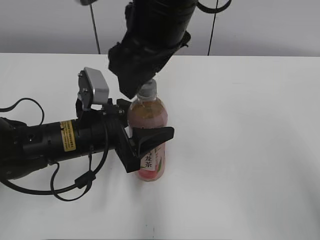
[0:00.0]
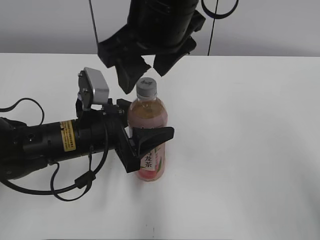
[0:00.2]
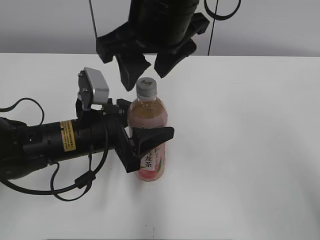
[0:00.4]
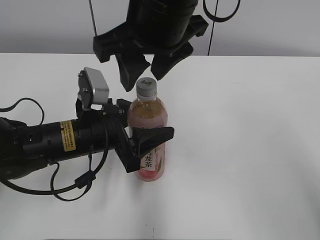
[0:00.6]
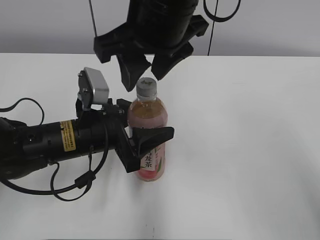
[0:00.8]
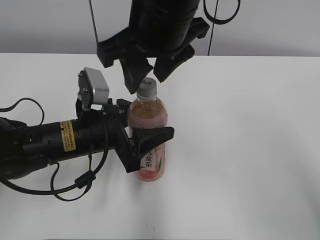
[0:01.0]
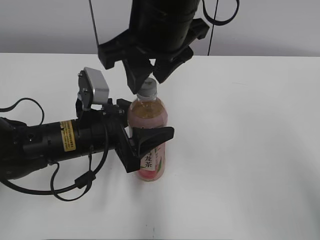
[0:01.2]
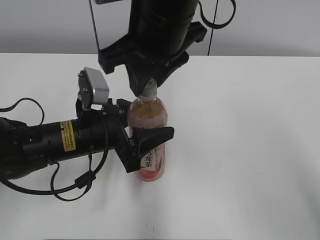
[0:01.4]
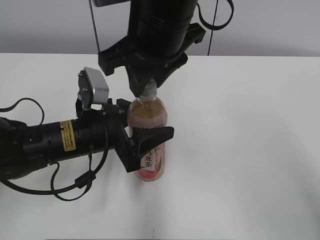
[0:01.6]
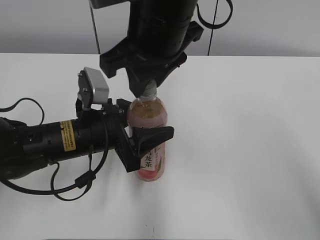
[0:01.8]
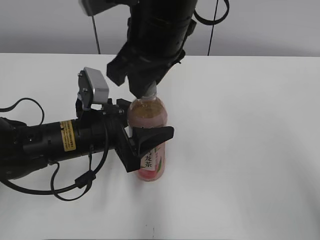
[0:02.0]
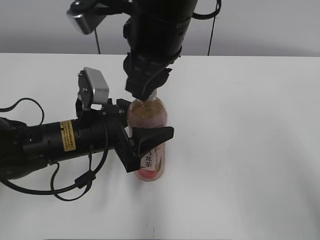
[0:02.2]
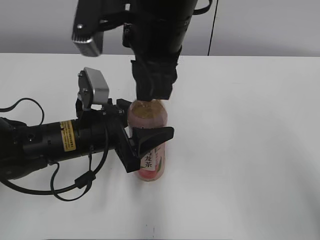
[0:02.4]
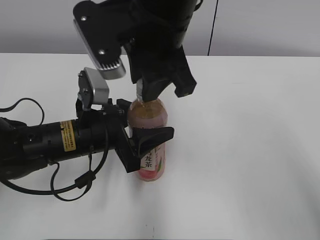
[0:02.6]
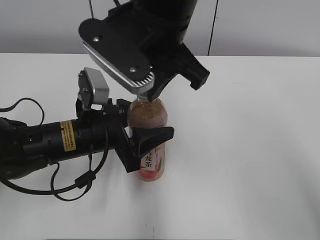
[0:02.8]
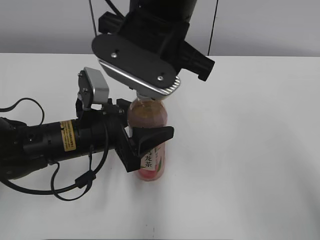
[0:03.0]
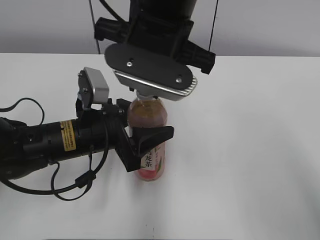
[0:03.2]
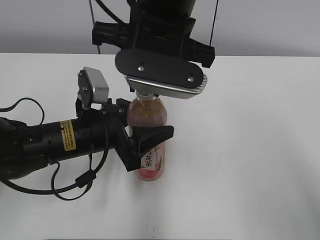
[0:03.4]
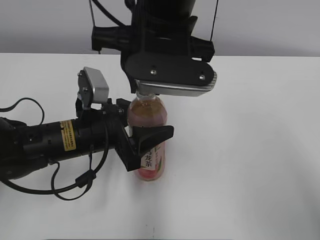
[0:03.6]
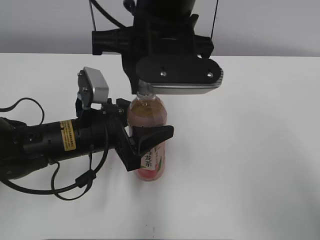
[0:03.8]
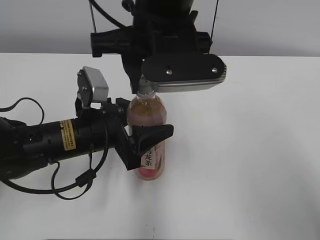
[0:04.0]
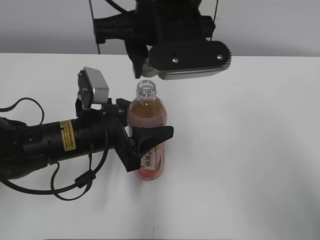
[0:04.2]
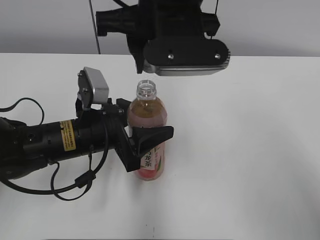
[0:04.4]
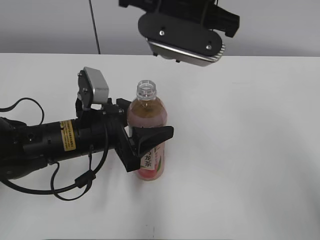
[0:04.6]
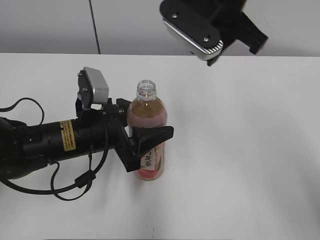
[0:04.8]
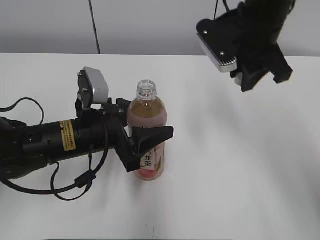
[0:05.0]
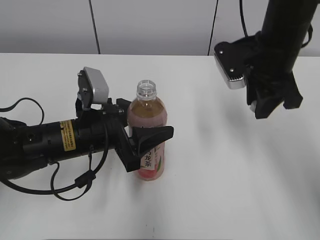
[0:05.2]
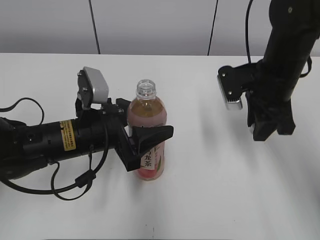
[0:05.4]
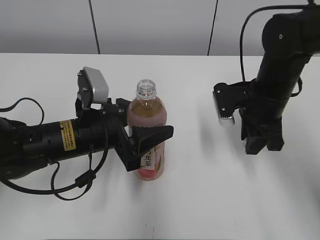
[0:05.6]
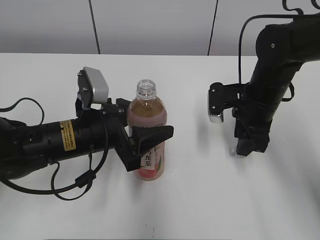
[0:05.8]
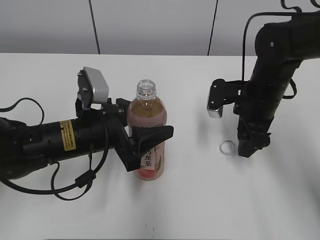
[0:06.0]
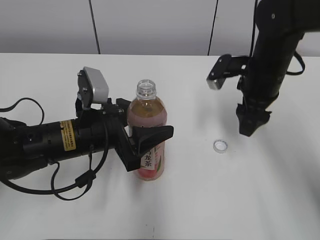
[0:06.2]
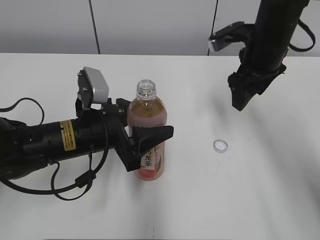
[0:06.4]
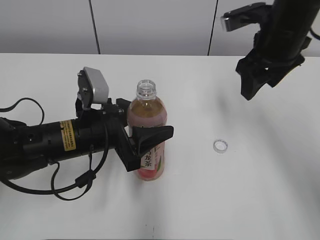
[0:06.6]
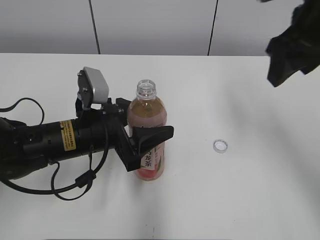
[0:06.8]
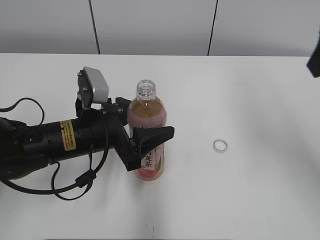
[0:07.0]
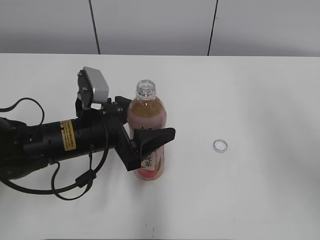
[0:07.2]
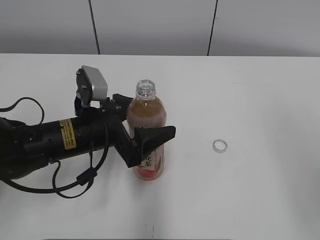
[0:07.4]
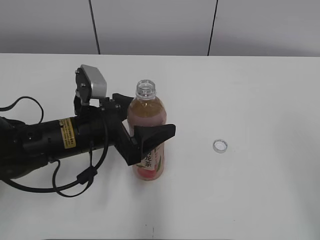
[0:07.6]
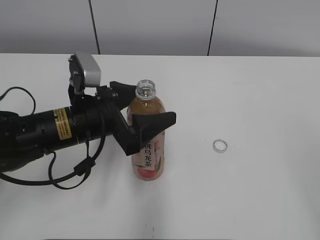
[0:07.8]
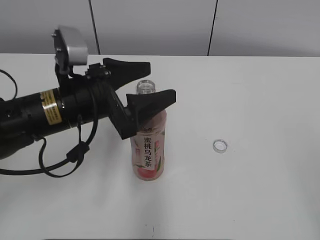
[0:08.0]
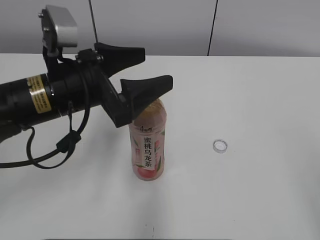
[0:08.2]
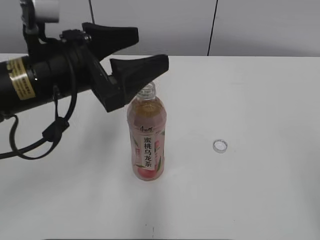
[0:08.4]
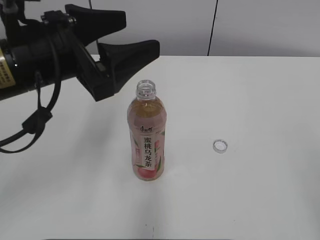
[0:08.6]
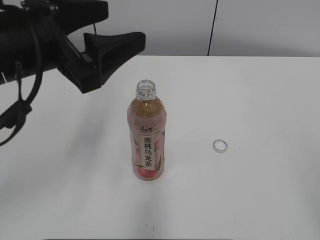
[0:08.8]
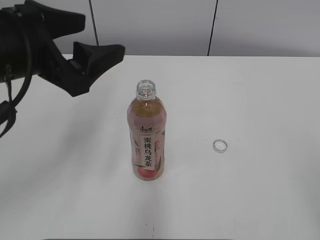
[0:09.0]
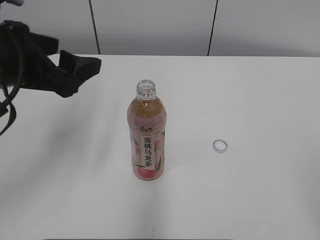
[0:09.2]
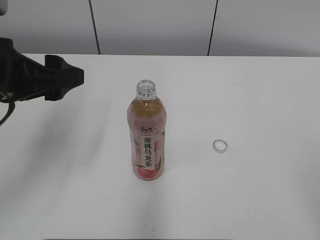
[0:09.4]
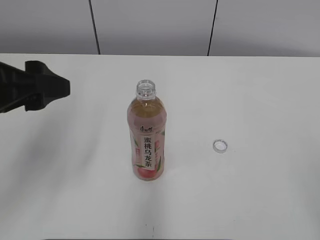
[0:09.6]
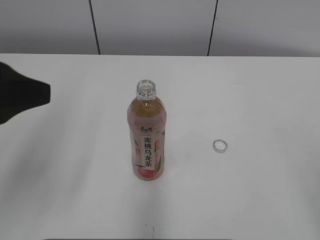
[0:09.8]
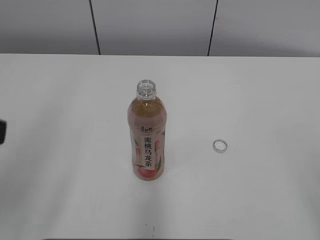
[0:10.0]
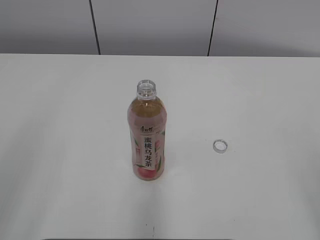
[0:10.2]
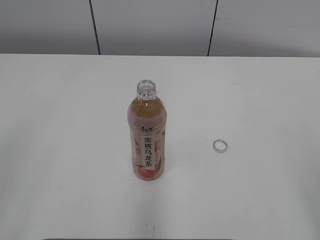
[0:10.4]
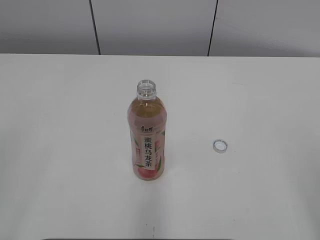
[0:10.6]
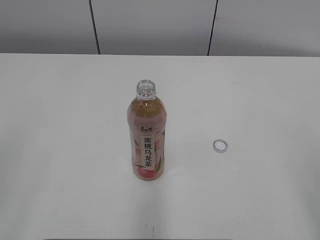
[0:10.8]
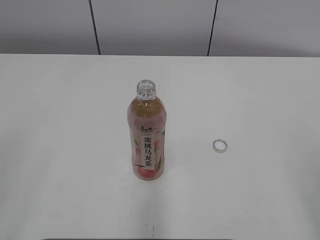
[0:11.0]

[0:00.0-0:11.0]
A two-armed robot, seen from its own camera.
Step, 0:04.8 to 0:06.8: Place the bottle cap on the right.
Step, 0:07.0 to 0:08.6: Place the Peach Oolong Tea with the left hand.
0:00.0 to 0:01.6: The right gripper closes.
0:03.2 to 0:04.8: The right gripper moves to the right and forward, approximately 10 cm.
0:04.8 to 0:06.2: The right gripper shifts roughly 20 cm downward and to the right, and opens.
0:06.2 to 0:07.8: The left gripper opens up. The right gripper is displaced backward and upward by roughly 40 cm.
0:07.8 to 0:09.4: The left gripper shifts approximately 15 cm upward and to the left.
0:09.4 to 0:11.0: The left gripper travels backward and to the left by roughly 25 cm.

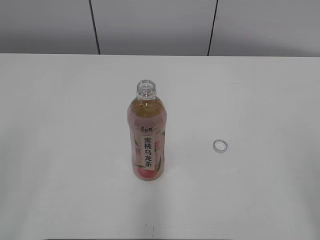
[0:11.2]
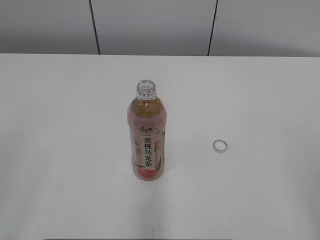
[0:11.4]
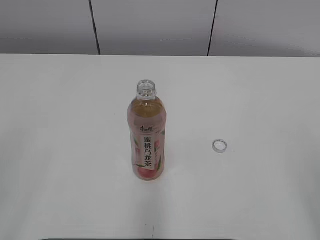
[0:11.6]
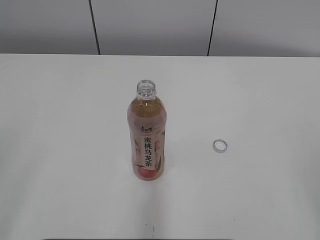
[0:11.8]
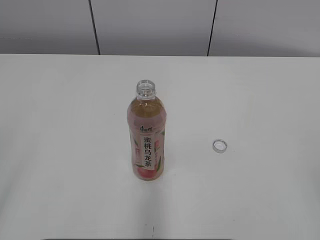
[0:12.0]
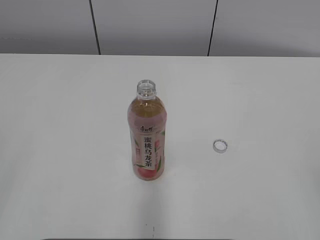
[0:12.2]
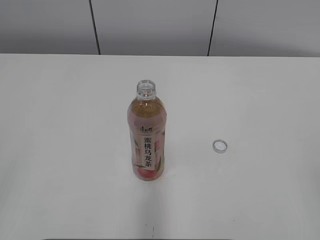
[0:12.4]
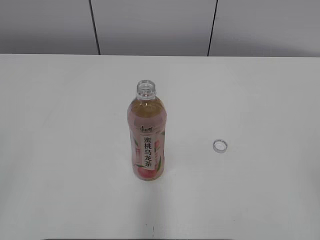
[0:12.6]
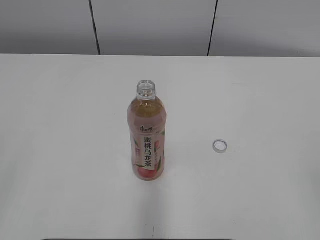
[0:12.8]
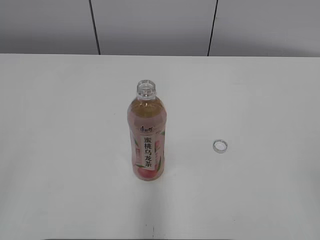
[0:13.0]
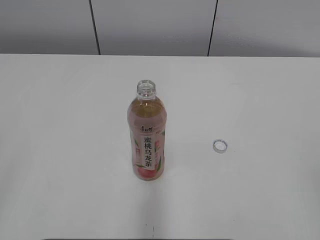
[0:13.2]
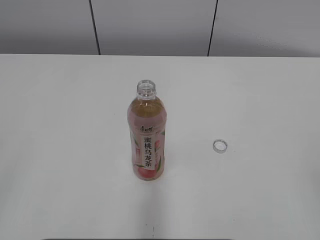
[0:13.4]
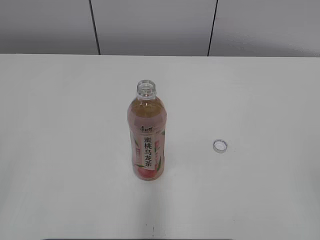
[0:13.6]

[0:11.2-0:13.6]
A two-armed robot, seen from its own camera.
0:12.4 to 0:13.6: The two grippers keep their place.

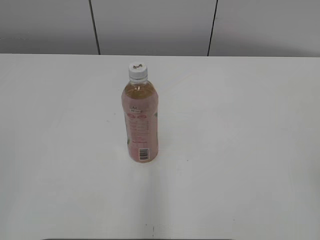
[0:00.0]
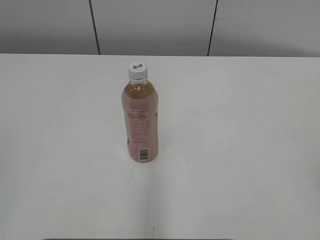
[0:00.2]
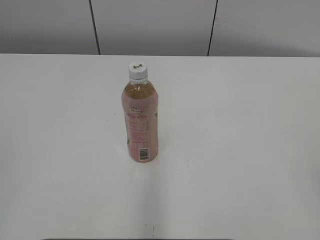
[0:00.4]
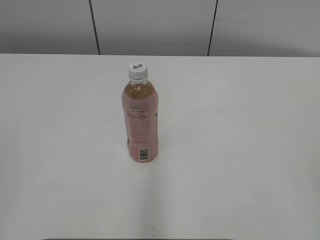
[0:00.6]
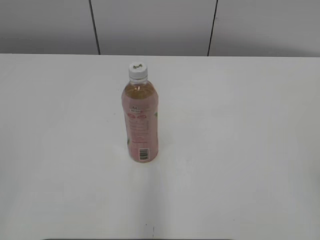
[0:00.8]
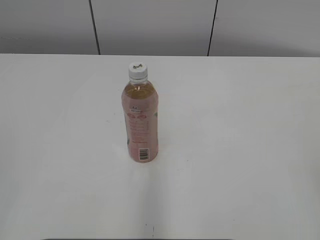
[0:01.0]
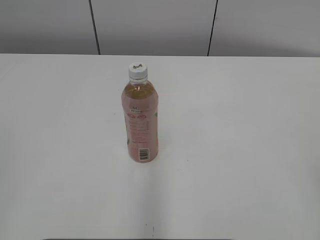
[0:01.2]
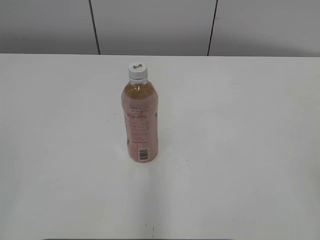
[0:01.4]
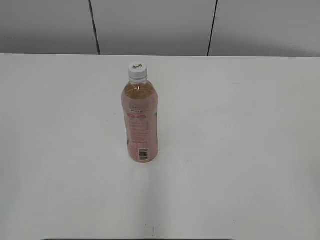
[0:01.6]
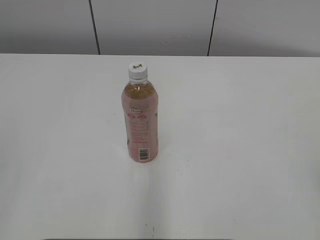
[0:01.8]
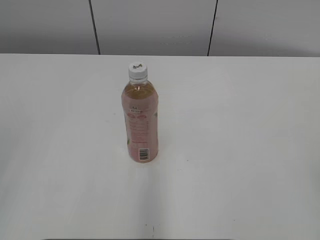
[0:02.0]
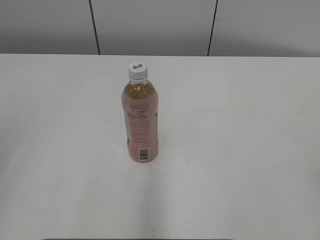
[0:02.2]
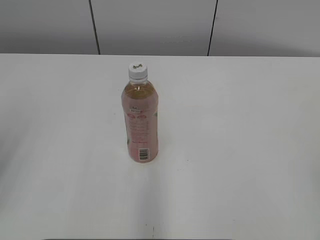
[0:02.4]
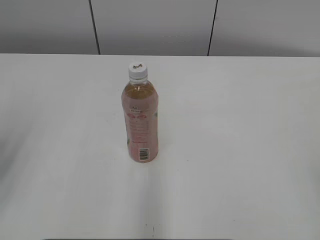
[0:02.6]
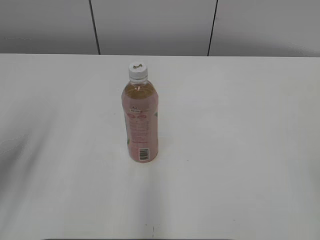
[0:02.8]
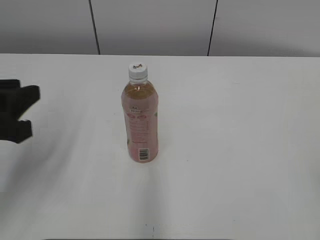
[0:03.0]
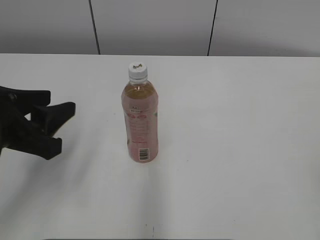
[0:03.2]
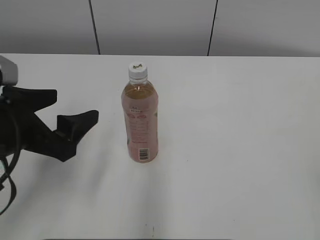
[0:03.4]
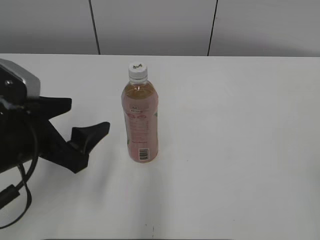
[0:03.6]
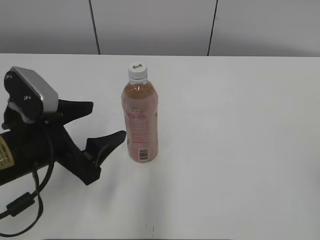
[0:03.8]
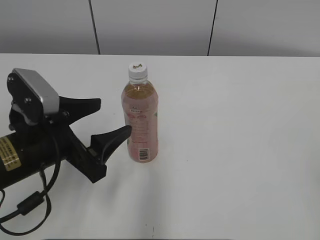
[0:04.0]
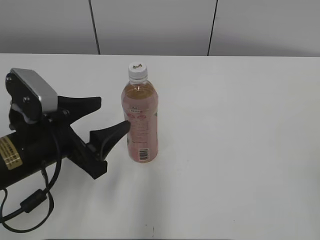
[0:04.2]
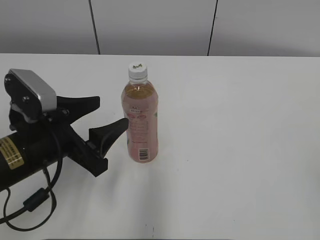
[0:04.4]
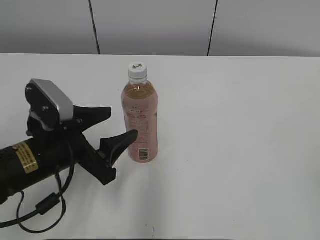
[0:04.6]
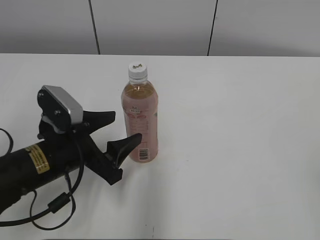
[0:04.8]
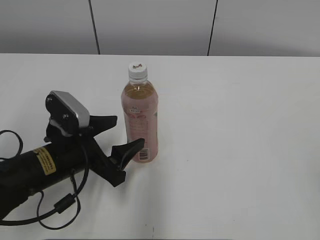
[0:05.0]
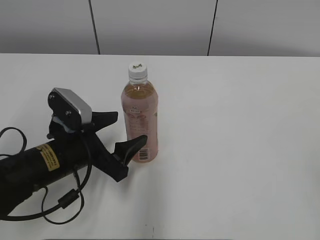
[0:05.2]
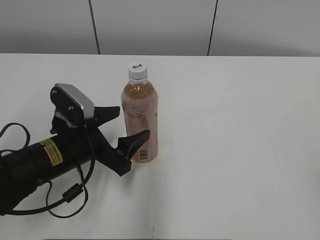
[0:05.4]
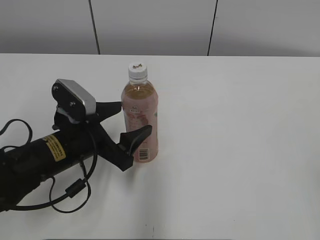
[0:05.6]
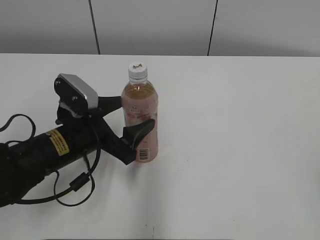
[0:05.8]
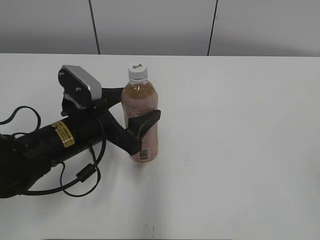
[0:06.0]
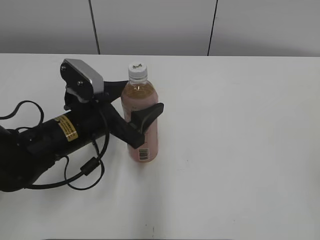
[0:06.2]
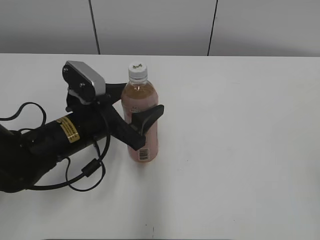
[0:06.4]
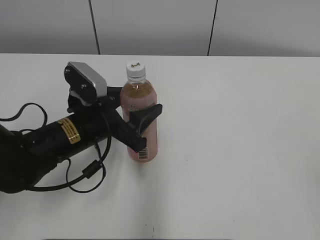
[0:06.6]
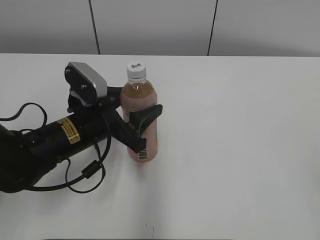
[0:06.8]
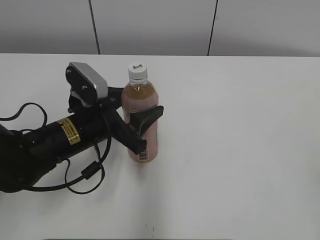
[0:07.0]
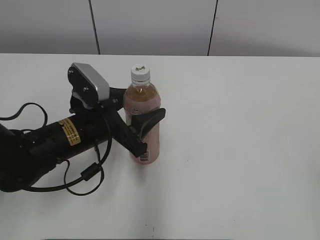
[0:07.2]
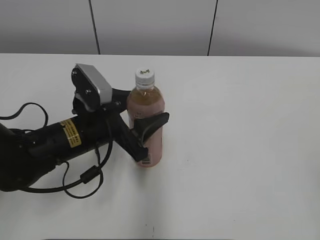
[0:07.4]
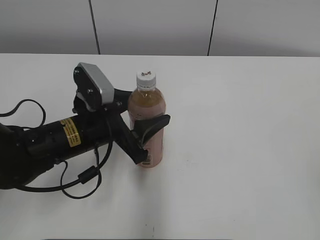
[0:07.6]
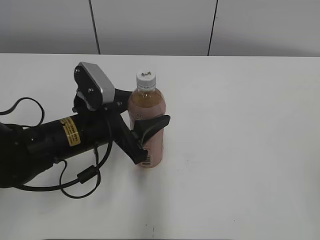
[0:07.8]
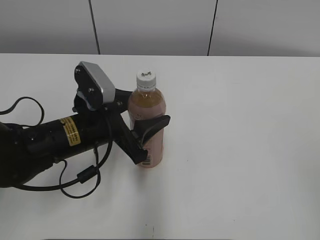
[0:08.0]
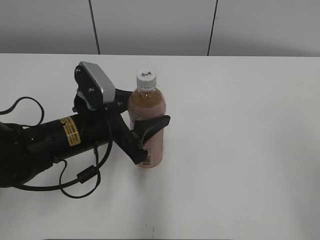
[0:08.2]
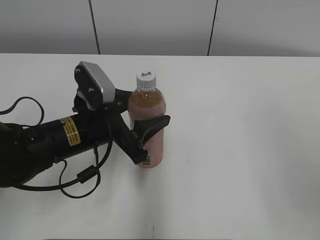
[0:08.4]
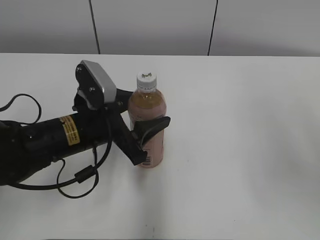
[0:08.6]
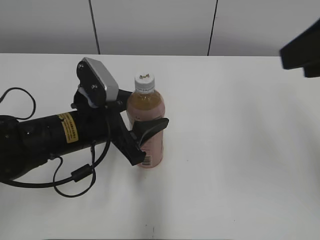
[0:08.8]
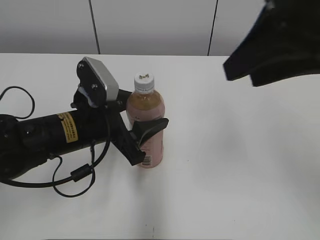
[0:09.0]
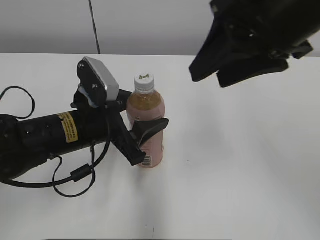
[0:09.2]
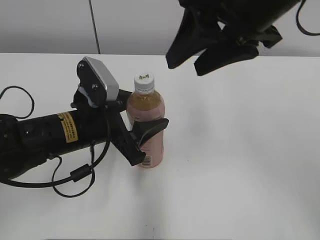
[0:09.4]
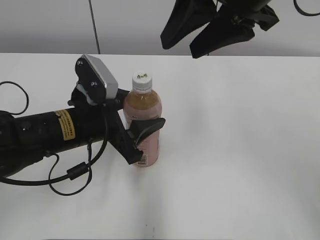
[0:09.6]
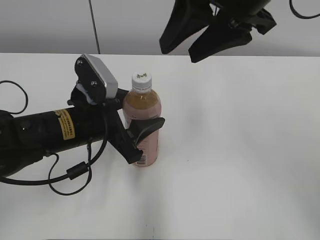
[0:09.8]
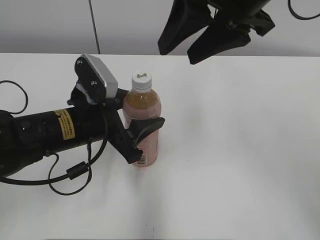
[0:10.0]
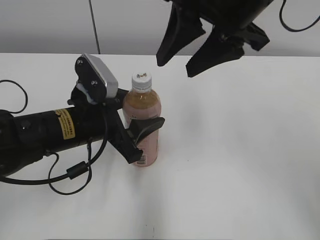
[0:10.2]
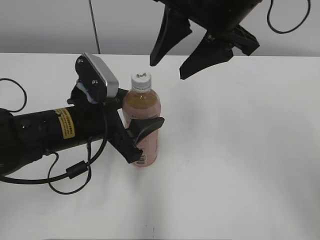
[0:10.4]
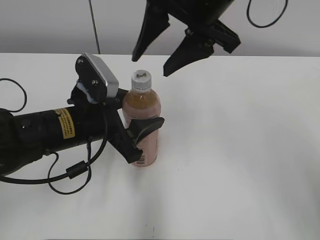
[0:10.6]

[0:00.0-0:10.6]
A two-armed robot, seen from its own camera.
Step, 0:00.0 to 0:06.6: Grab the Peach Oolong Tea with the left hand.
0:01.6 to 0:03.0: The left gripper is displaced forward by roughly 20 cm.
0:03.0 to 0:04.6: The left gripper heads downward and to the right, covering some 15 cm, and opens its fingers.
0:04.6 to 0:06.0: The left gripper moves some 5 cm.
0:06.0 to 0:07.6: The left gripper closes.
0:07.6 to 0:09.0: The right gripper heads forward and to the left, covering roughly 25 cm.
0:09.0 to 0:10.6: The right gripper heads to the left and forward, covering some 15 cm.
